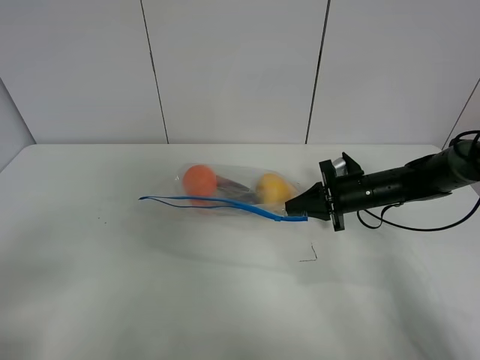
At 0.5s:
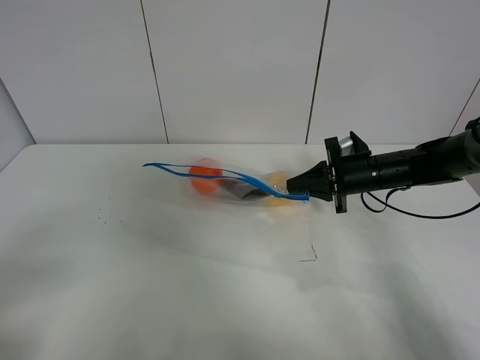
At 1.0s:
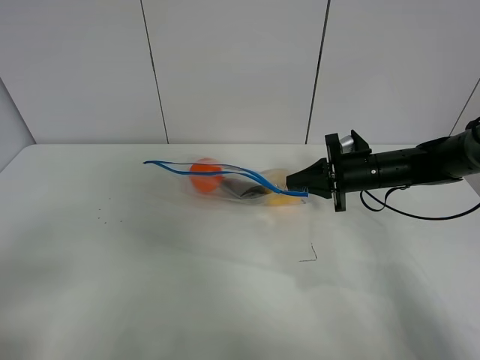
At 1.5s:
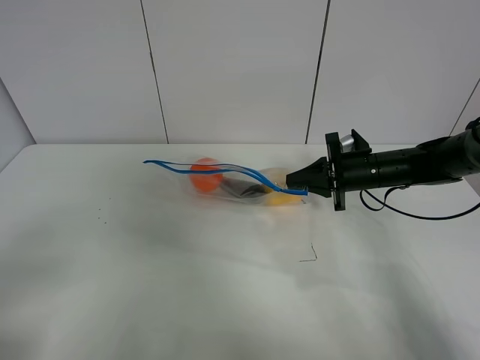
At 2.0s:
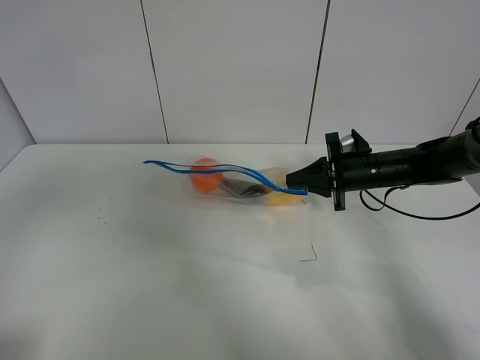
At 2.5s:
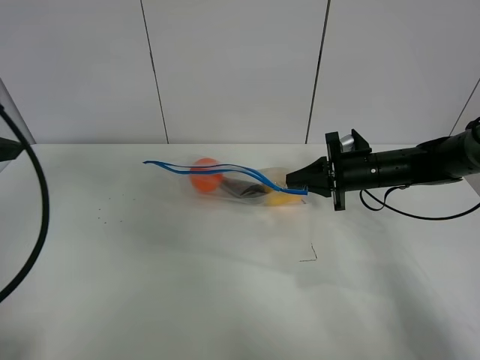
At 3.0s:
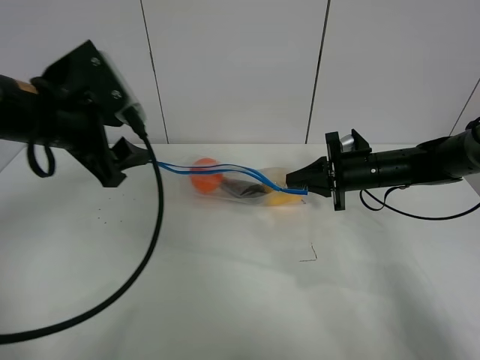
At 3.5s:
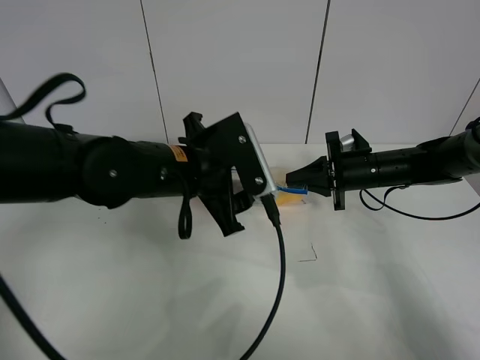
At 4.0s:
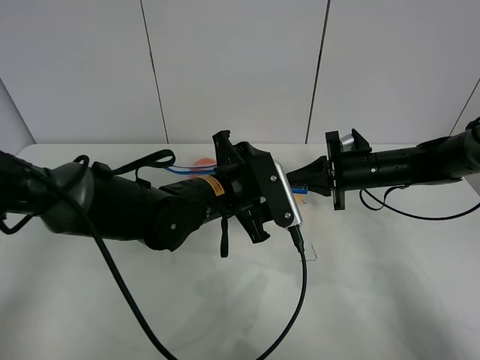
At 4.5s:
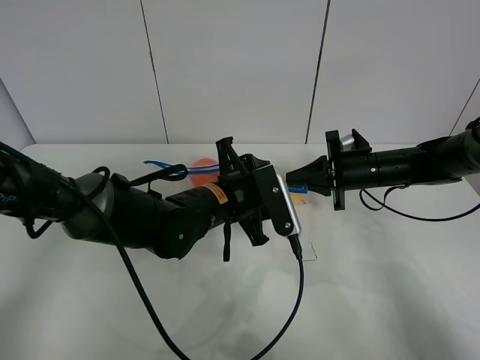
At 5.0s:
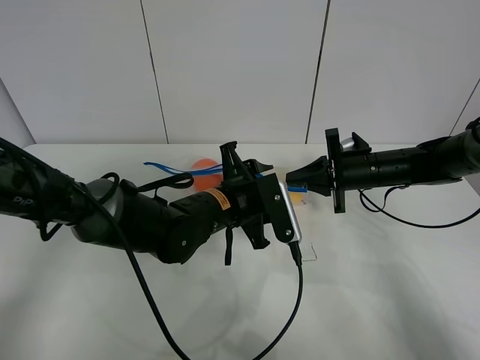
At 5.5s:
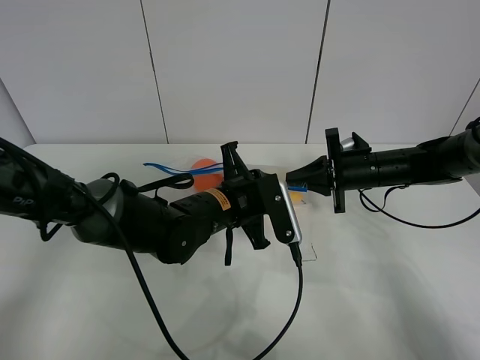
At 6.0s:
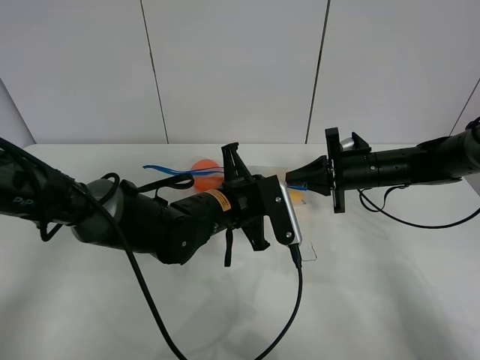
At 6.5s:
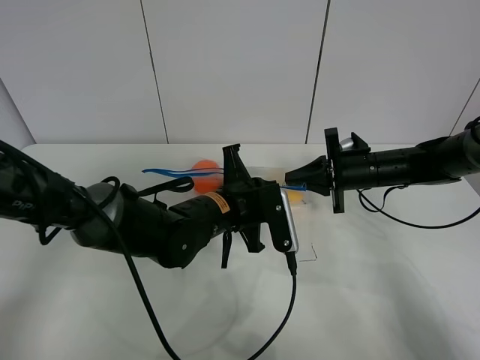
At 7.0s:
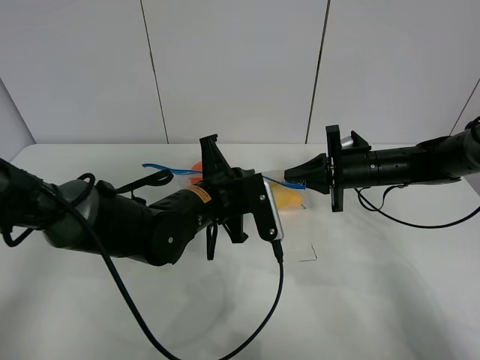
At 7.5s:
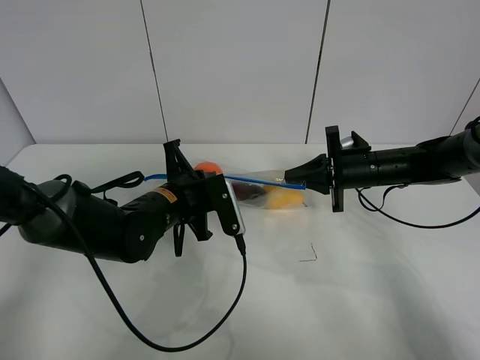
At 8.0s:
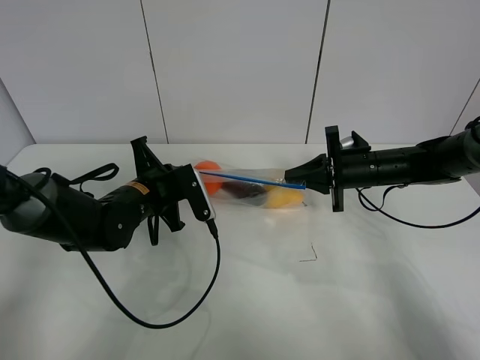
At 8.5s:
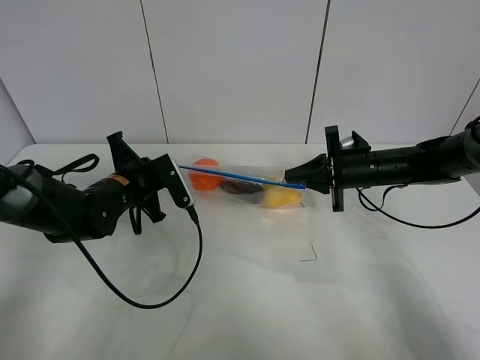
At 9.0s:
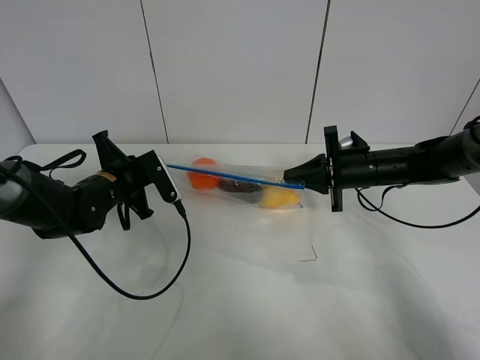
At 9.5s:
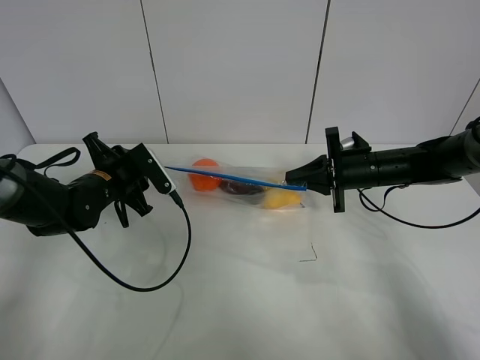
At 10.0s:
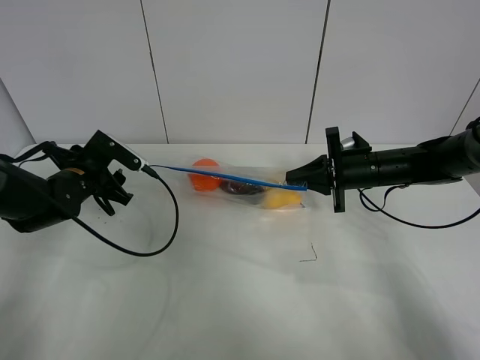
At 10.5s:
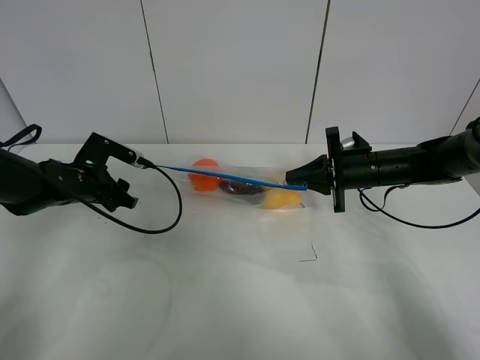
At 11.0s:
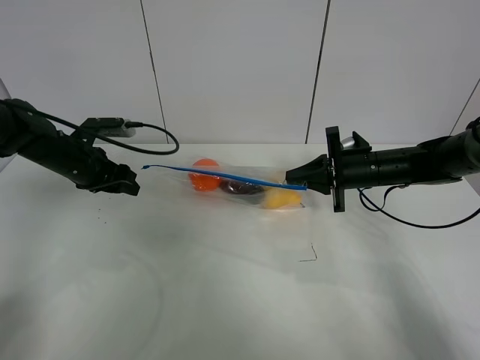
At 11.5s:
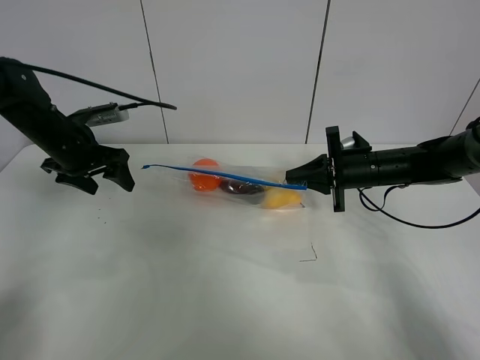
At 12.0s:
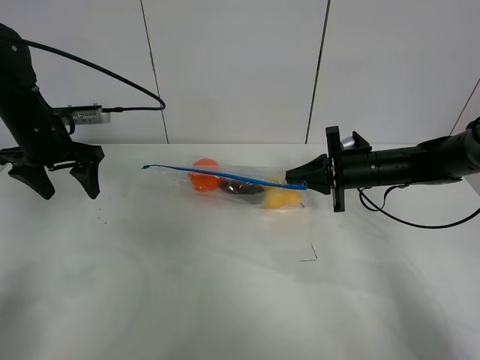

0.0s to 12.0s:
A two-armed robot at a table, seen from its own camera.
Step, 1.5s to 9.5s: Pull the fruit bag with left gripper.
0.0s to 2.0s: The left gripper travels upward and forward by about 15 cm.
2.0s to 4.0s: The left gripper goes about 40 cm to the right, downward and forward.
4.0s to 6.0s: The left gripper closes.
6.0s to 8.0s: The left gripper heads to the left, covering some 15 cm.
8.0s to 10.0s: The left gripper shifts approximately 10 cm to the left, and opens up.
10.0s to 12.0s: The left gripper is displaced upward by approximately 10 cm.

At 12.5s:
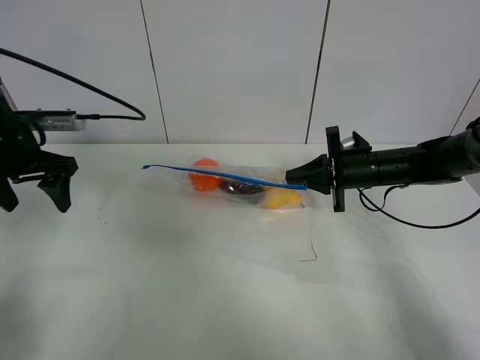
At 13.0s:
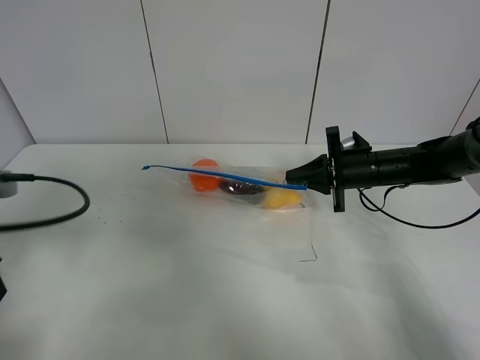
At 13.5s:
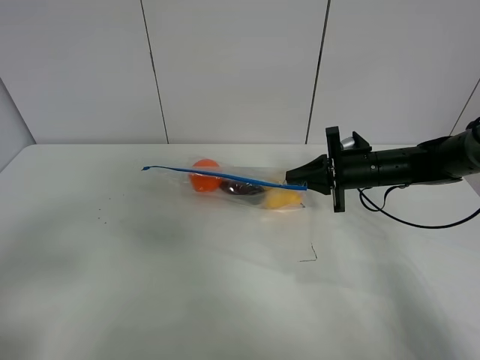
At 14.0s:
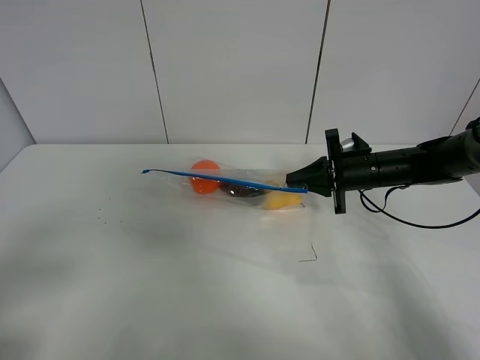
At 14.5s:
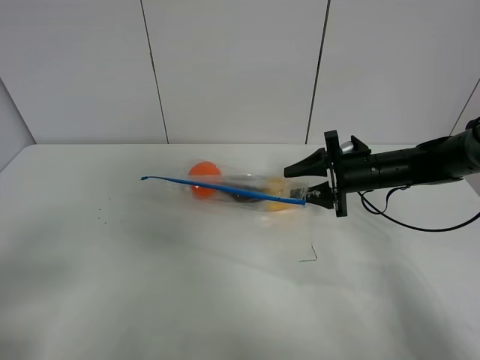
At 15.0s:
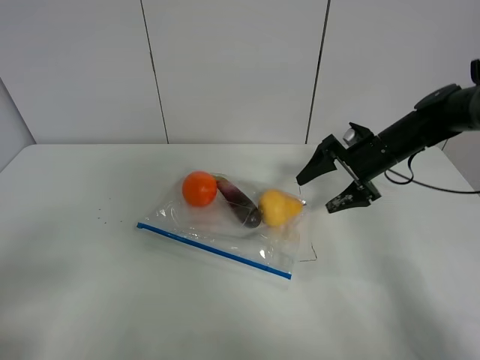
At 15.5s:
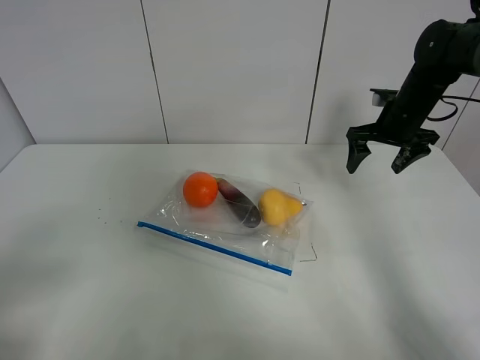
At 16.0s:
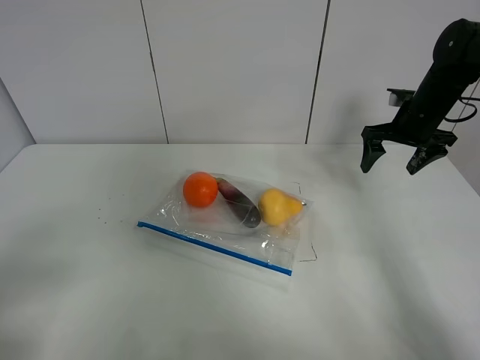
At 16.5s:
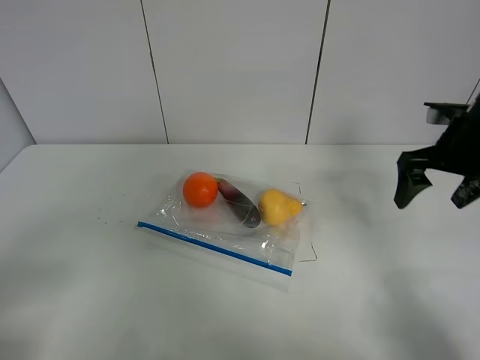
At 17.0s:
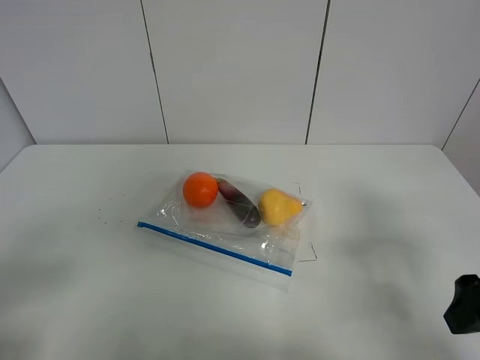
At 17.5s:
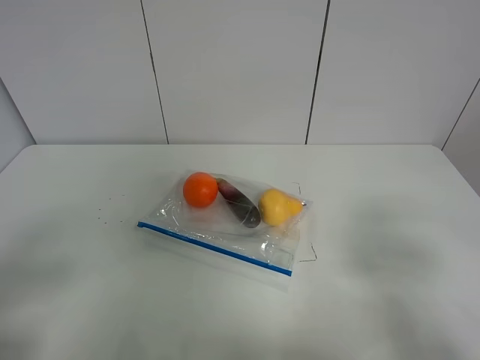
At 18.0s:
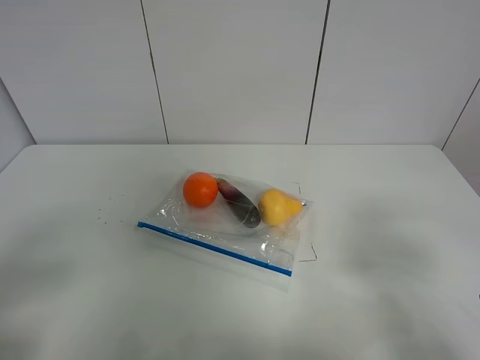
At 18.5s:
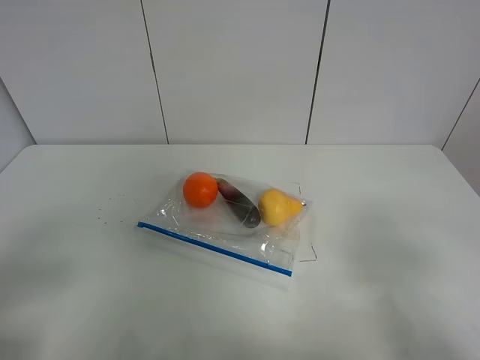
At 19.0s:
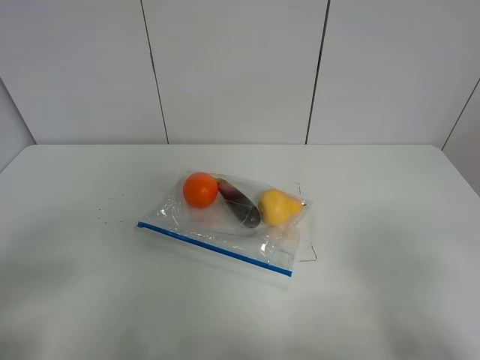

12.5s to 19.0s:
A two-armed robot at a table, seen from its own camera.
Step, 12.5s to 15.0s: Place the fruit bag with right gripper.
12.5s to 14.5s: The right gripper opens its fingers; the left gripper travels backward by approximately 30 cm.
14.5s to 17.0s: The right gripper is displaced backward and upward by about 25 cm.
17.0s to 19.0s: The right gripper goes some 15 cm backward.
